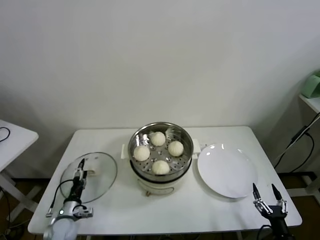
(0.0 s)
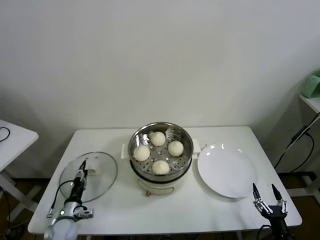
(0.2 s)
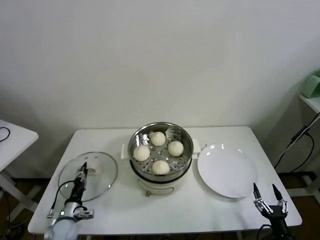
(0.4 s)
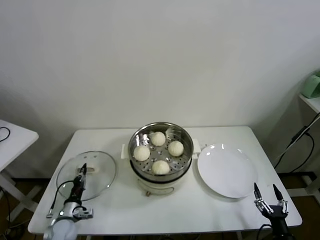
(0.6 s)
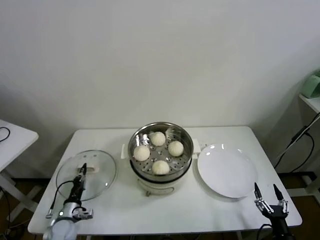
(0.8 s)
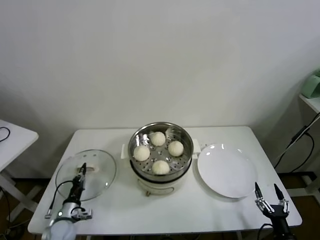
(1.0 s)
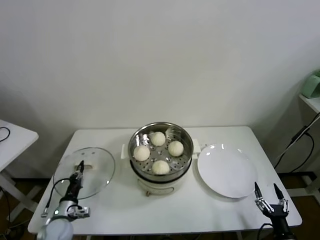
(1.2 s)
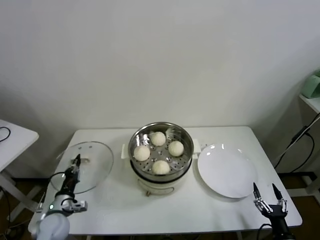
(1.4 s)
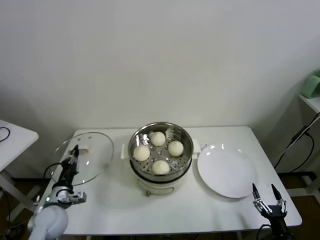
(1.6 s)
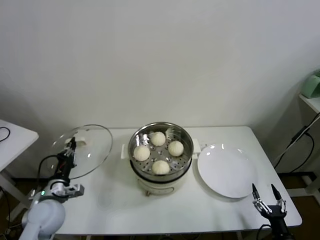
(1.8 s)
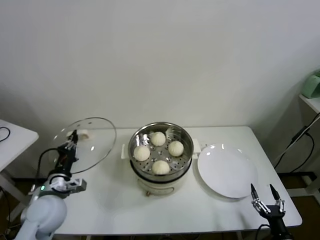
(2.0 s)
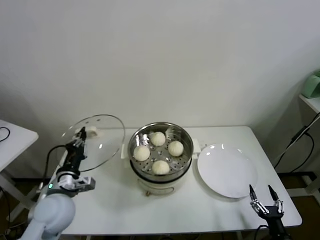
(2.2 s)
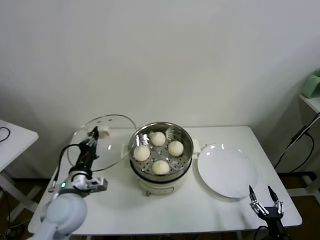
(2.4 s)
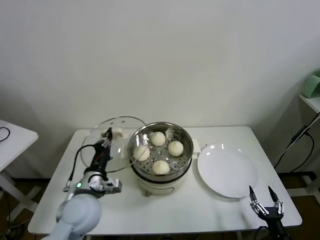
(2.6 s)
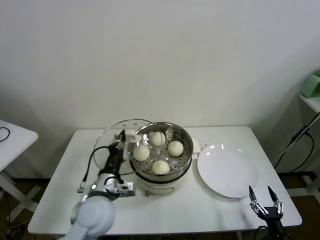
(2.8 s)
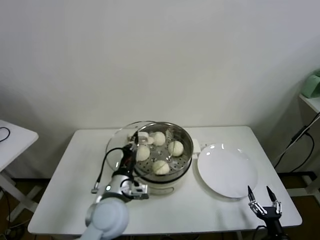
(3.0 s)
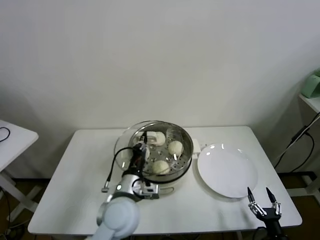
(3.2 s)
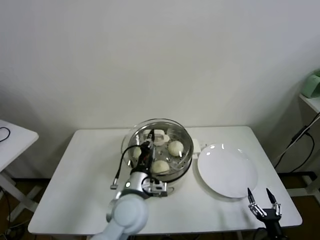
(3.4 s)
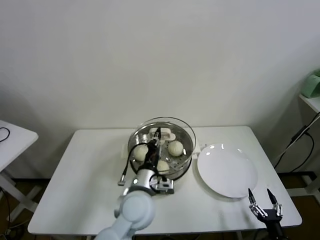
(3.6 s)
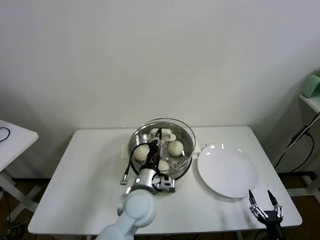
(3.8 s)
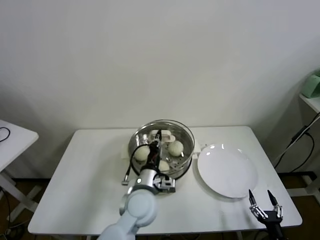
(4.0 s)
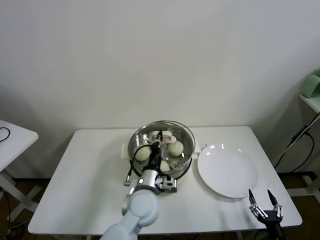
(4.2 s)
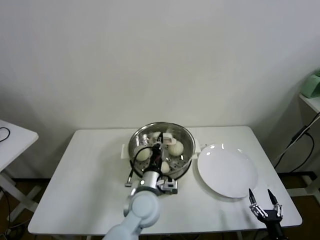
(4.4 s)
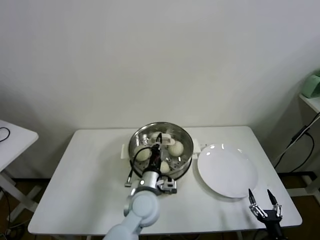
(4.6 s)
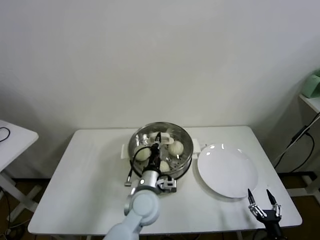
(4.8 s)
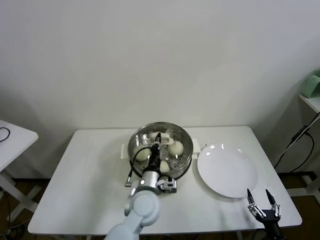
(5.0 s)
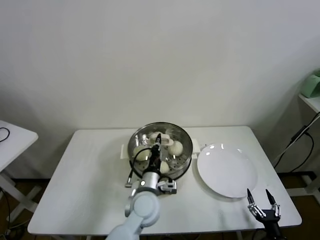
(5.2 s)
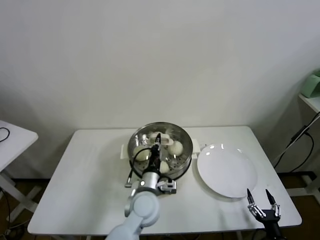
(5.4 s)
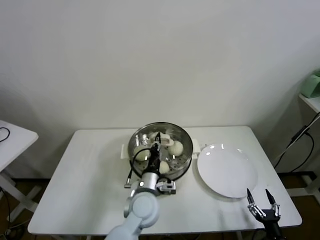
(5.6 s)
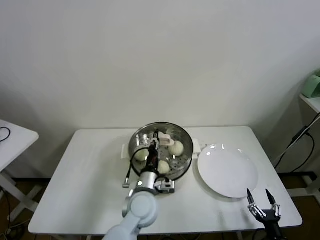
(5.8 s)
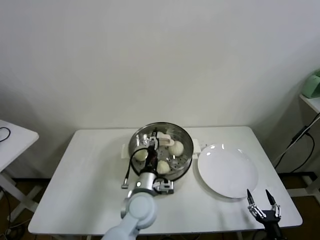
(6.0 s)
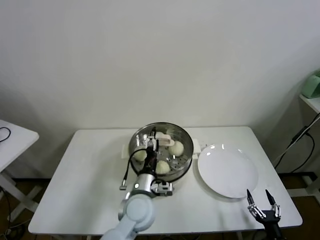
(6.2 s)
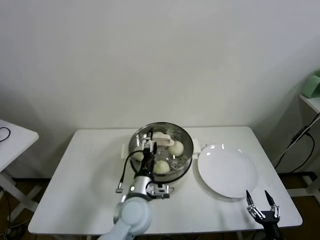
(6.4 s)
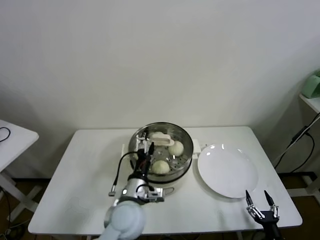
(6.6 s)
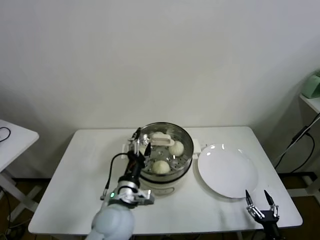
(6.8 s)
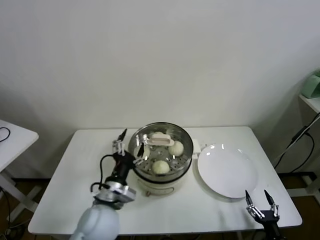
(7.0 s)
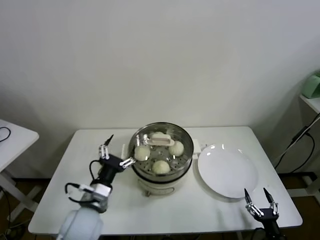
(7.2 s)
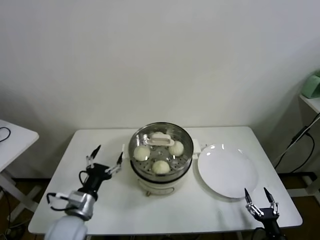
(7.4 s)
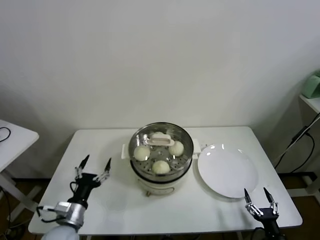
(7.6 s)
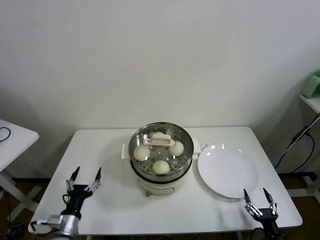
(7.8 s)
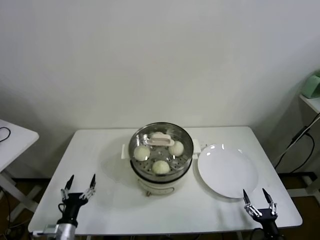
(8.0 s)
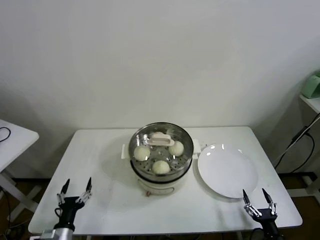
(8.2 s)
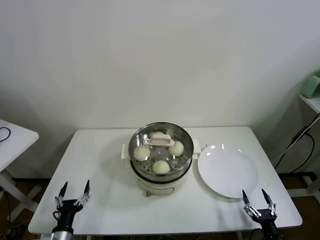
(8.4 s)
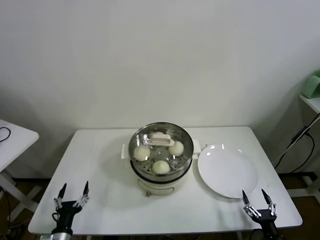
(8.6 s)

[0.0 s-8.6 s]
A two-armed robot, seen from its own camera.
Task of the whole recording: take steamed baozi put them in steamer.
Step, 0.6 to 6.2 s: Place the pot lid on the steamer with left gripper.
0.0 to 1.4 s: The left gripper moves upward, approximately 5 cm, and closes up.
1.4 to 2.8 s: The left gripper moves to the right and upward, approximately 25 cm.
2.8 to 4.4 s: The left gripper is displaced to the right by approximately 15 cm.
4.4 to 5.8 s: The grippers stay close to where they were, moving slightly.
5.8 to 7.2 s: The left gripper is displaced to the left and backward by some 15 cm, and opens its fingers.
7.2 to 8.6 s: The left gripper shifts some 25 cm downward, to the left and backward.
